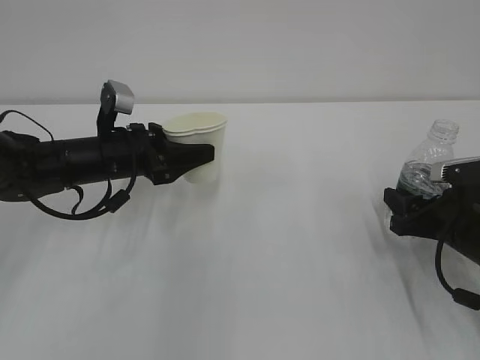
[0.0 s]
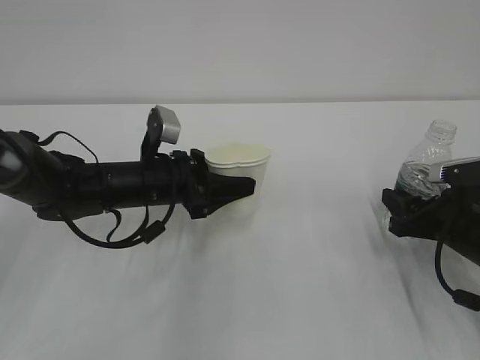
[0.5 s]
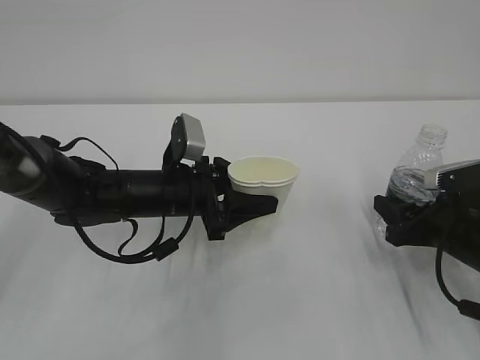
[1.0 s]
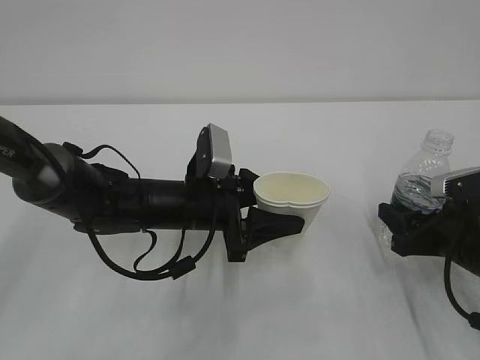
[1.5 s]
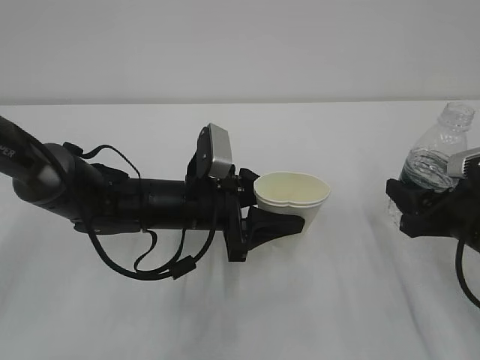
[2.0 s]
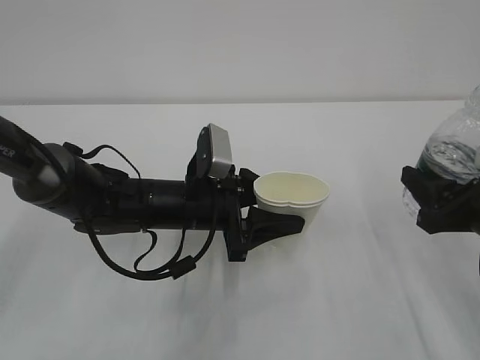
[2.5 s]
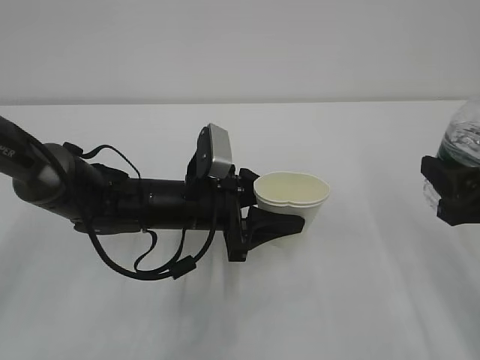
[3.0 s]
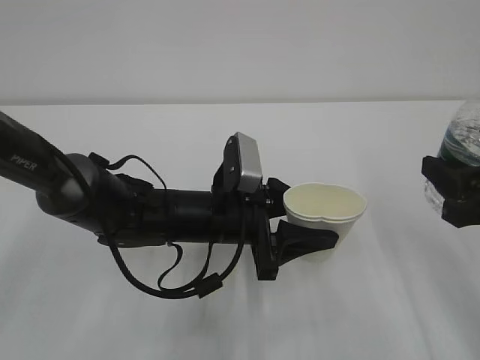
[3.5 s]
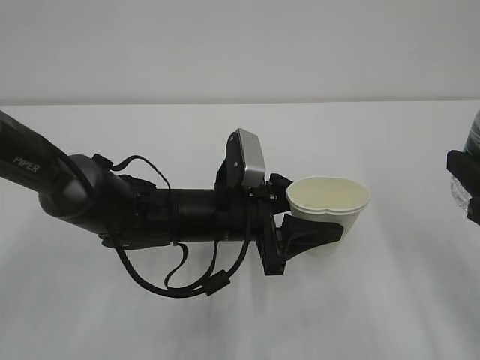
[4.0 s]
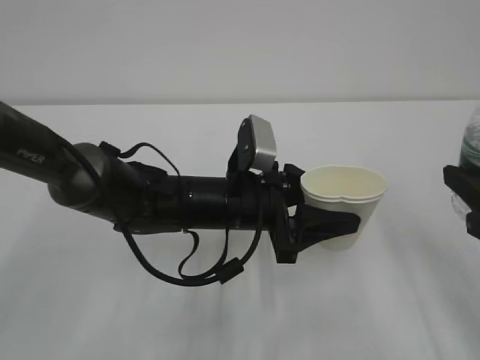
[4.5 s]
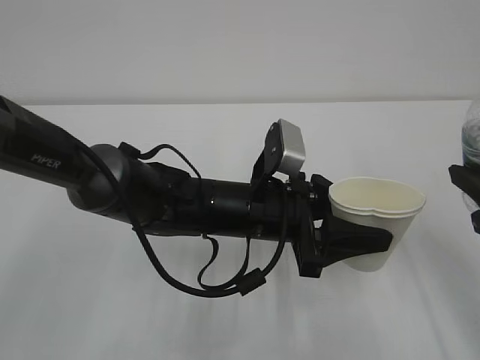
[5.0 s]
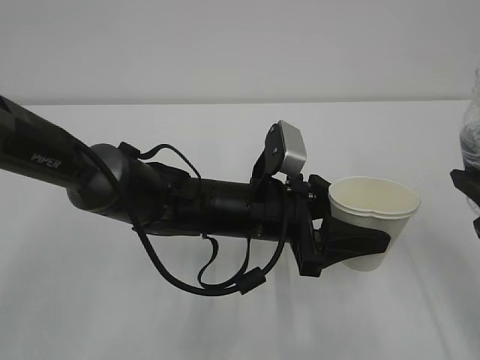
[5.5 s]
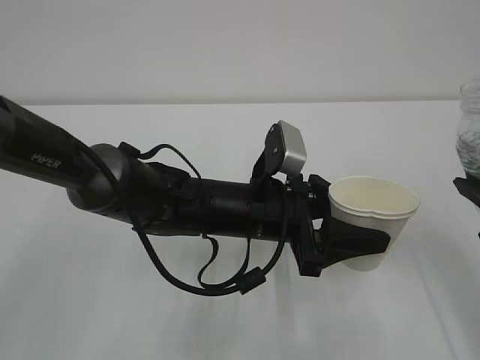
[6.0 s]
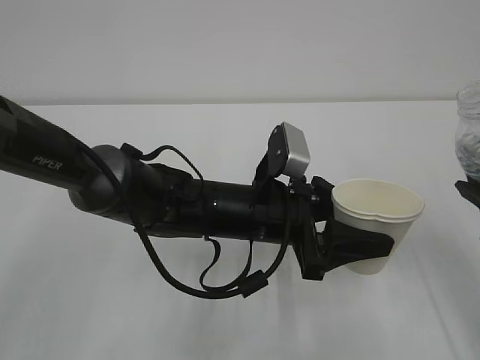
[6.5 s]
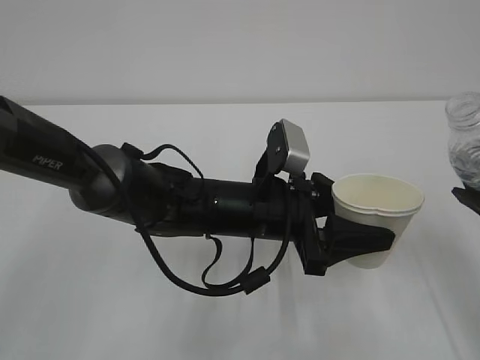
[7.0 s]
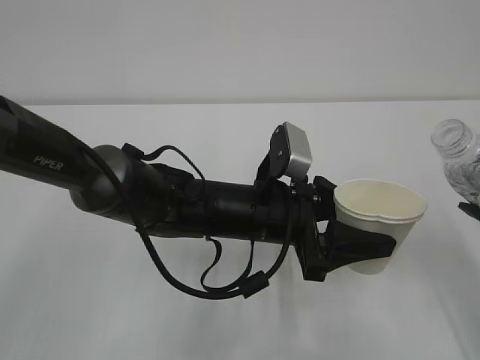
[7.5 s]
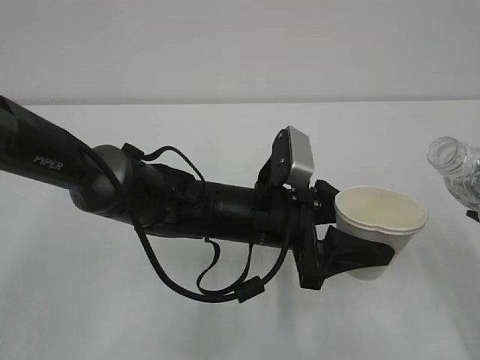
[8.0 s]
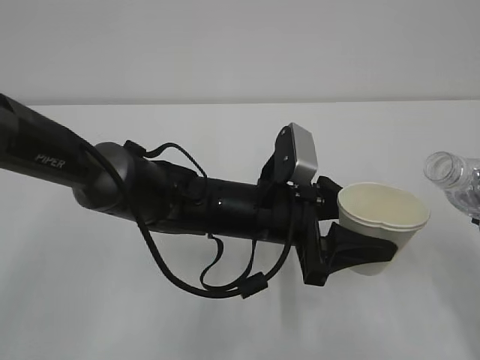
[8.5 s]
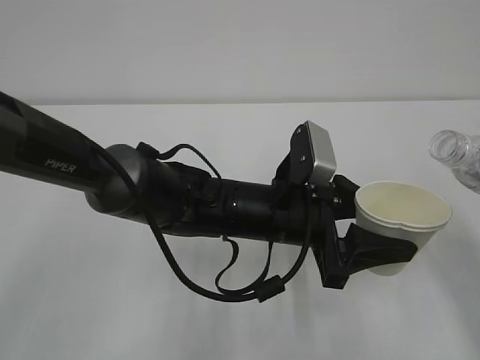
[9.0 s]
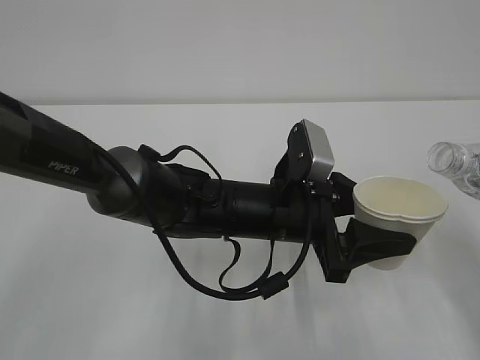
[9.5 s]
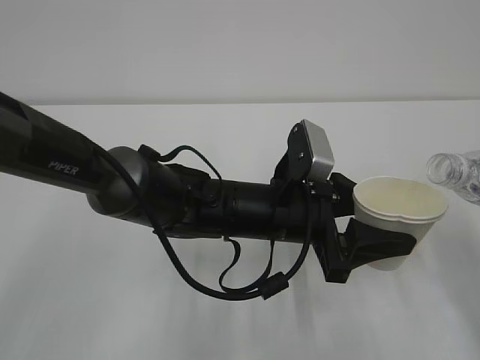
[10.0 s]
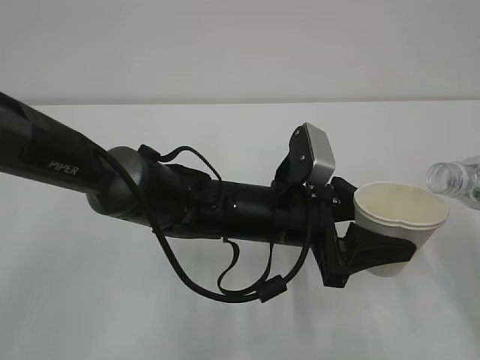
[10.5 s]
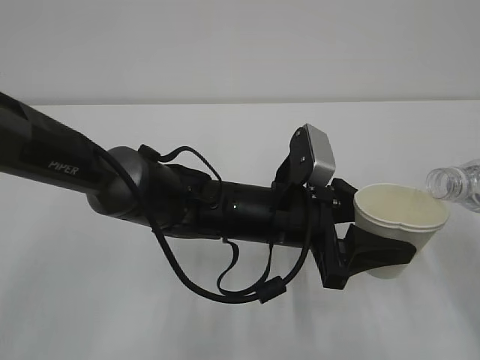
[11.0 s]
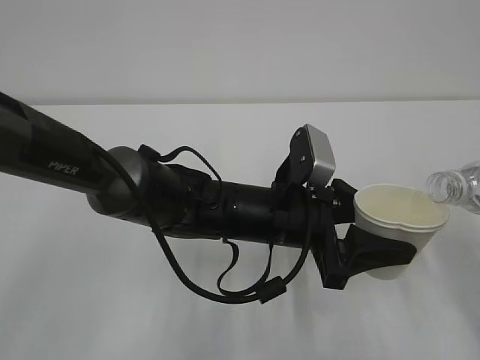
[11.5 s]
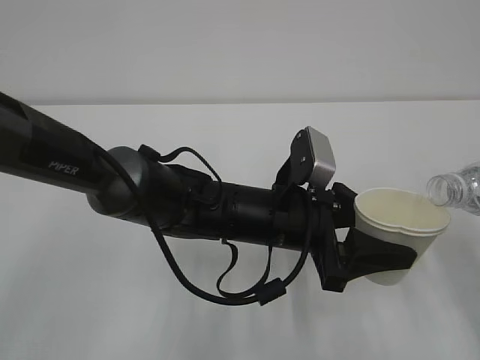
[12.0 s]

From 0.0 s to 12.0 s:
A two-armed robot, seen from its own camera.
From 0.0 s to 2.0 s: The left gripper goes approximately 15 cm to the right and backward.
From 2.0 s to 4.0 s: The right gripper shifts roughly 15 cm upward and backward.
From 8.0 s to 10.0 s: The grippers make only small movements.
From 10.0 s to 12.0 s: The grippers move only a little.

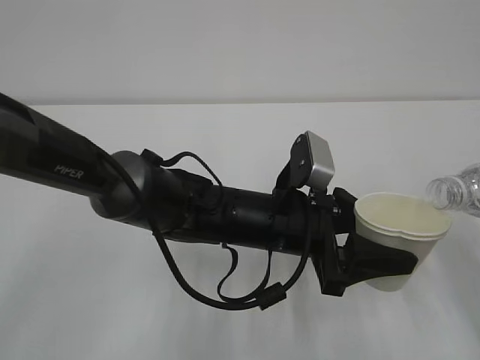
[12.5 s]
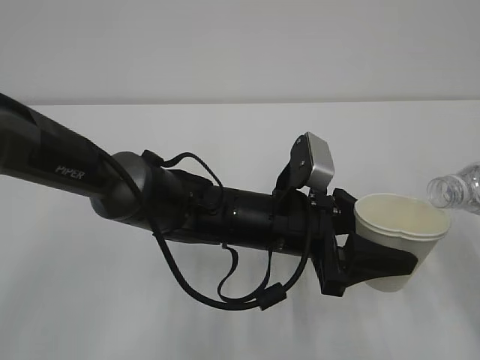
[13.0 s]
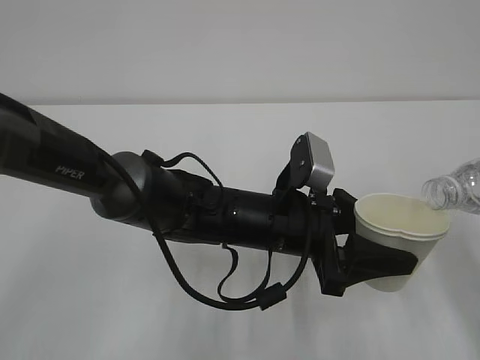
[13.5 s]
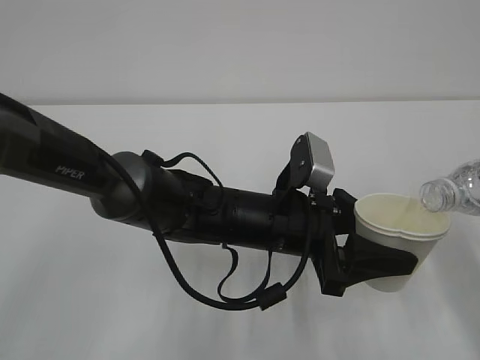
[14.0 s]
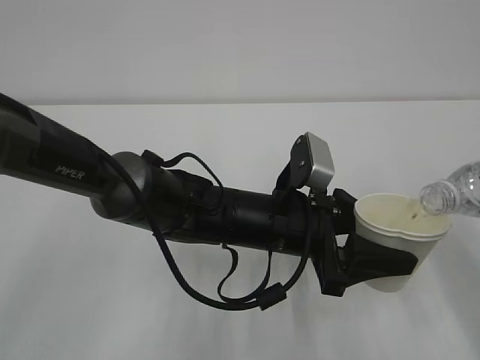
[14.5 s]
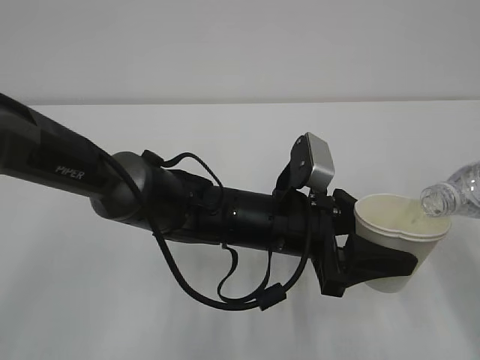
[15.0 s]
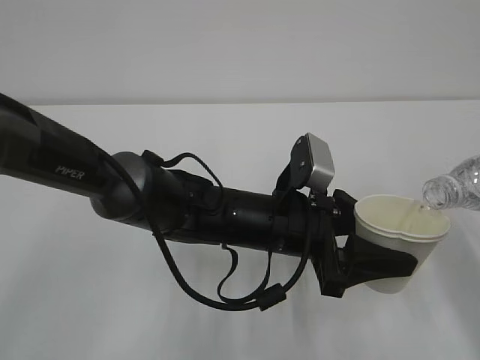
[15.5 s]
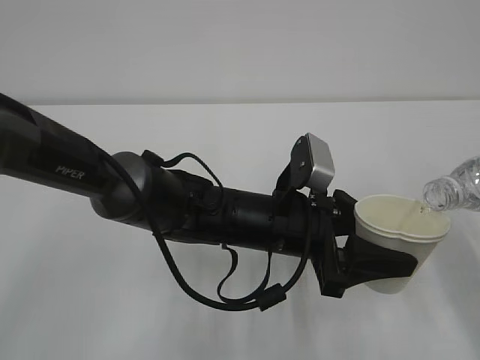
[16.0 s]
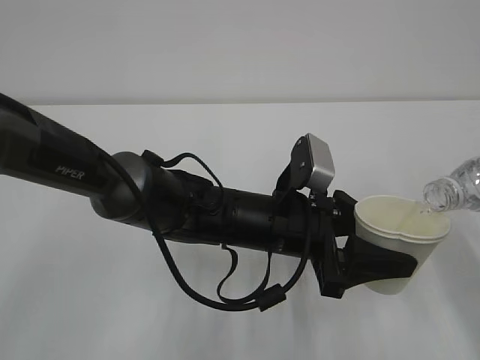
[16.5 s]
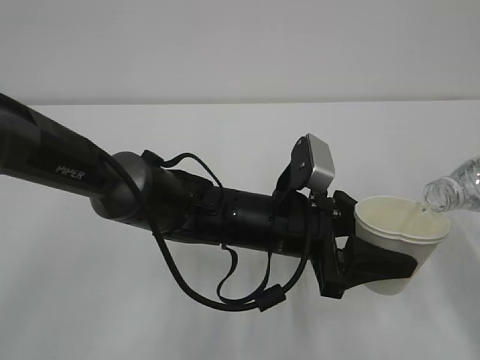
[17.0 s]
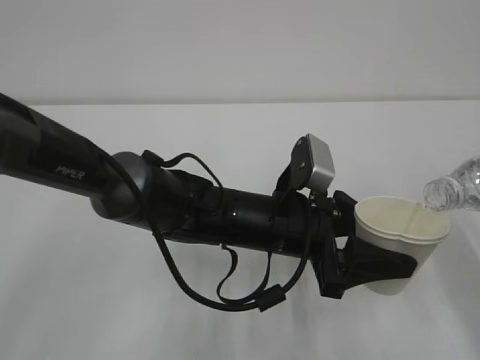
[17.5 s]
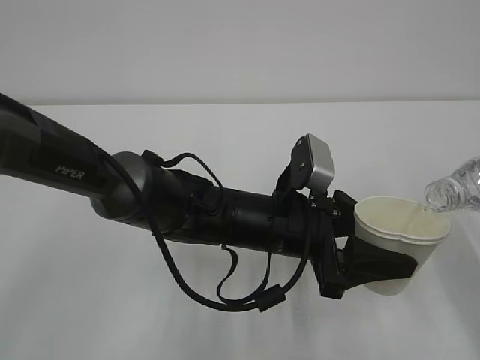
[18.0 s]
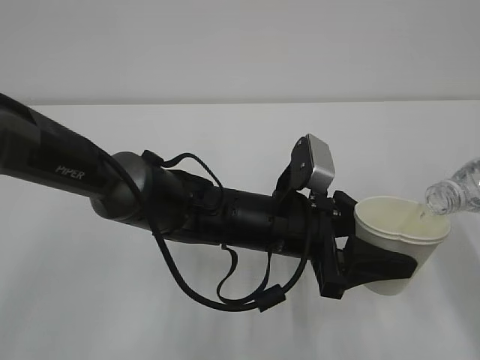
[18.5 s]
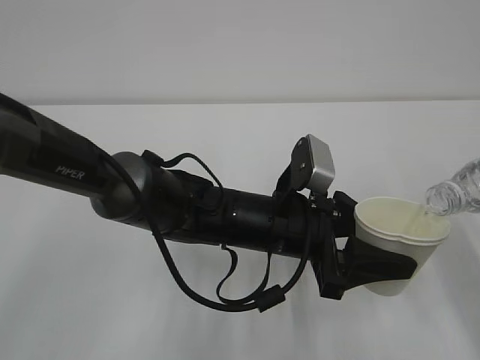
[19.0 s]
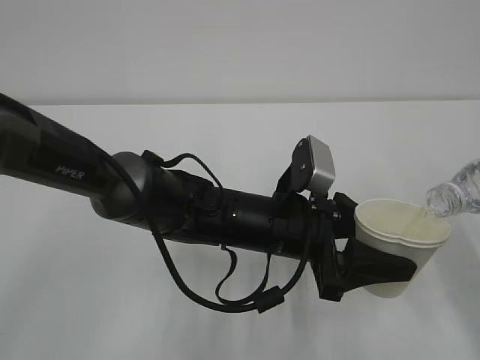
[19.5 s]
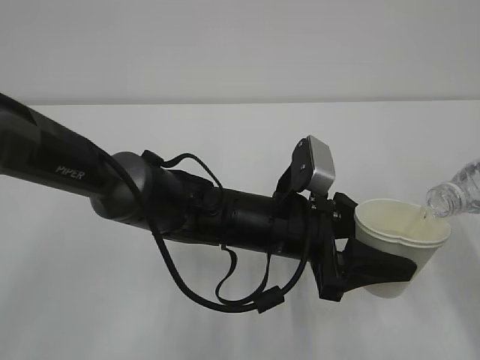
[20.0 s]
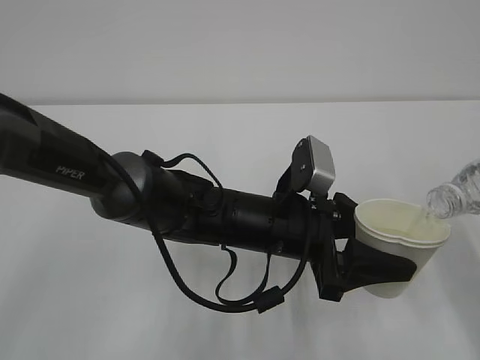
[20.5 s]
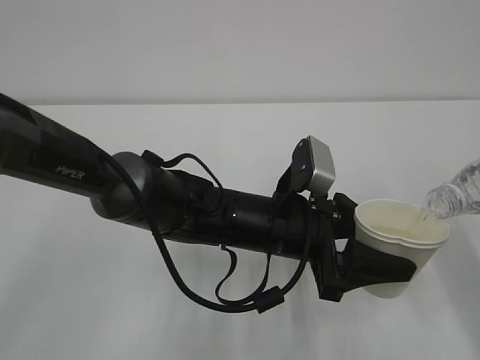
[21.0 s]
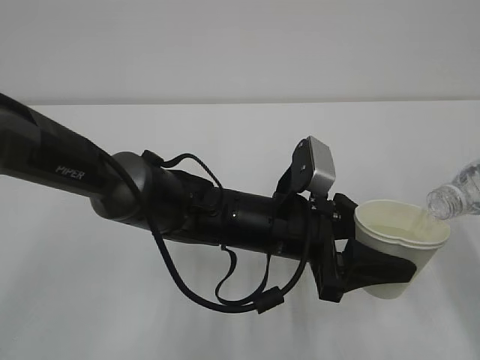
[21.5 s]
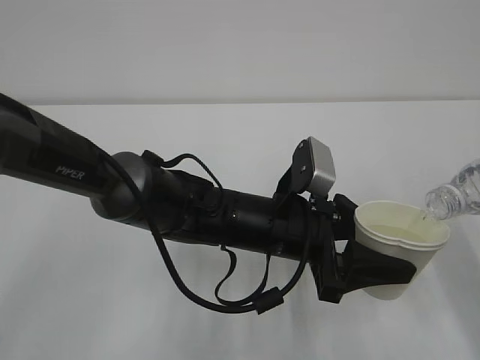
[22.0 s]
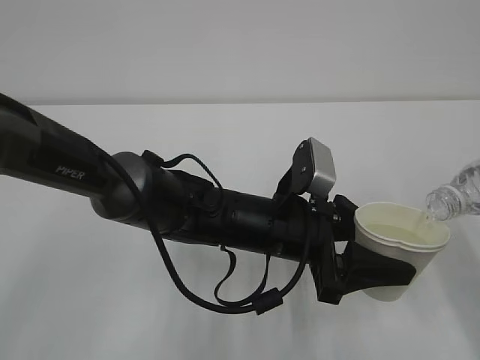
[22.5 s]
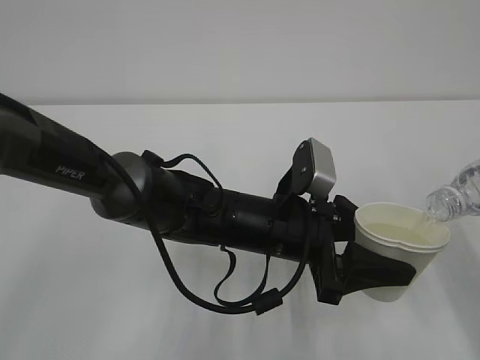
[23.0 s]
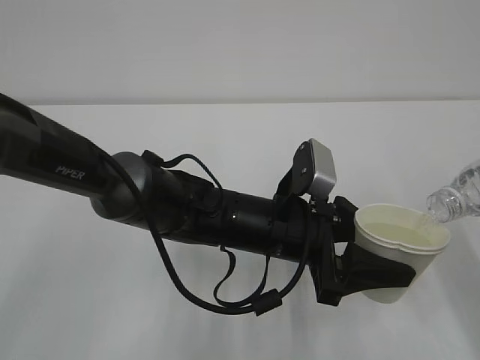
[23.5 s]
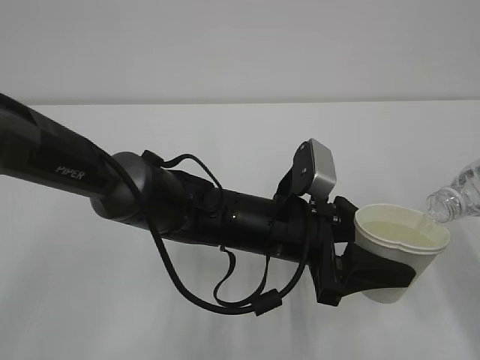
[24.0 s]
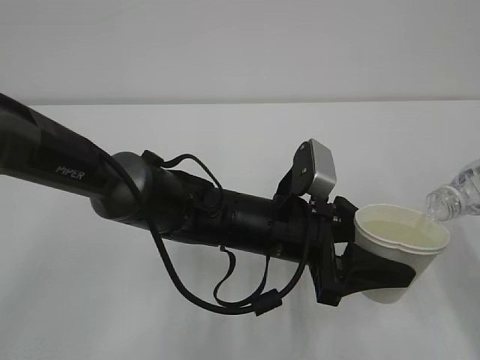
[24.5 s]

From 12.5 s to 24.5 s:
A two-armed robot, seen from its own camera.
From 14.5 s to 18.5 s: Both grippers stay put.
From 18.5 s to 22.5 s: The two grippers keep their place.
From 22.5 s to 24.5 s: Both grippers stay put.

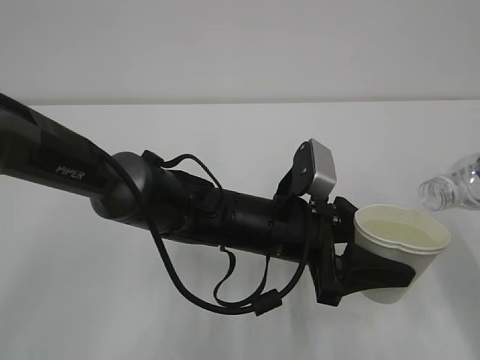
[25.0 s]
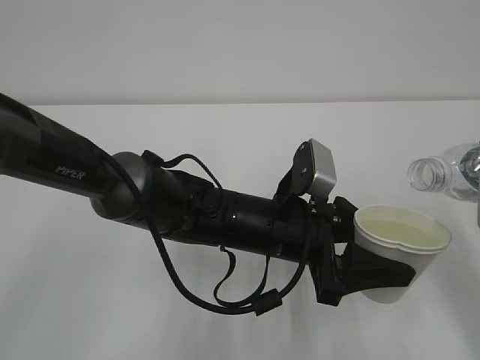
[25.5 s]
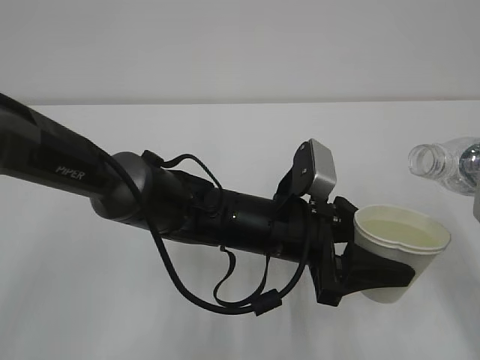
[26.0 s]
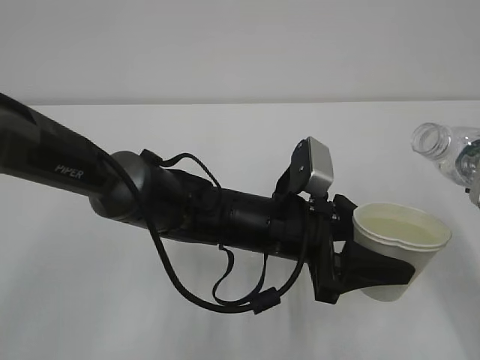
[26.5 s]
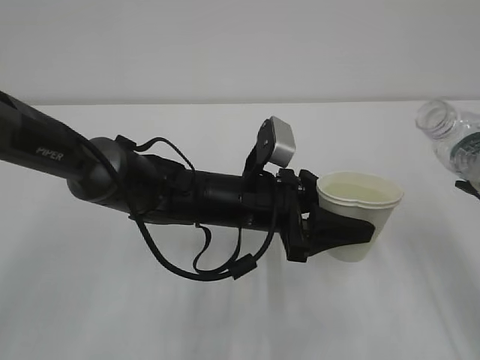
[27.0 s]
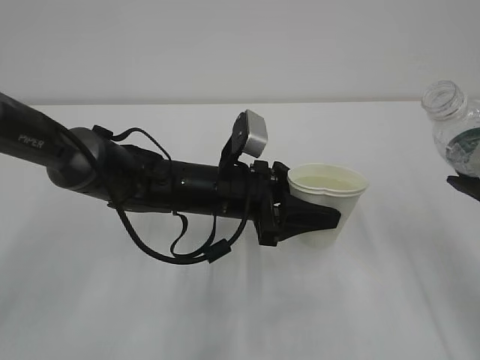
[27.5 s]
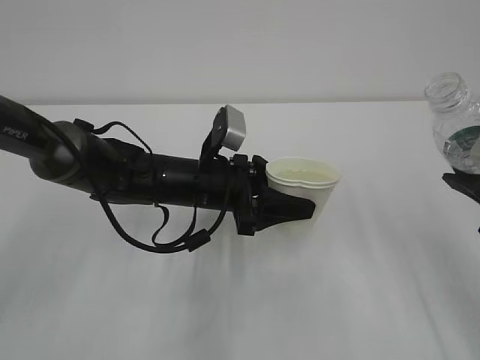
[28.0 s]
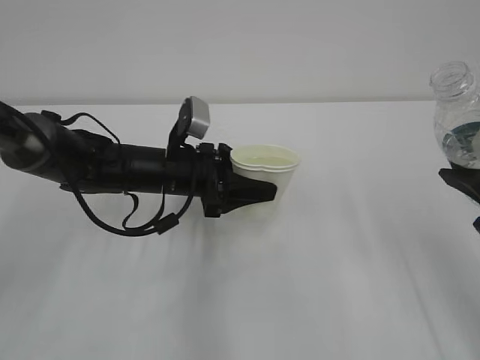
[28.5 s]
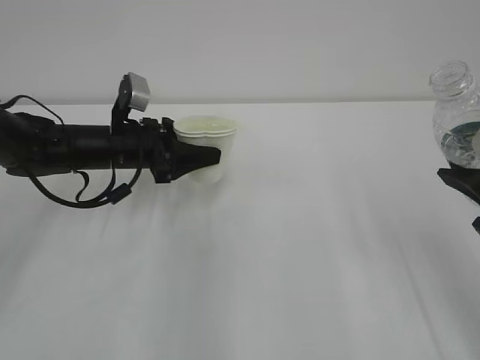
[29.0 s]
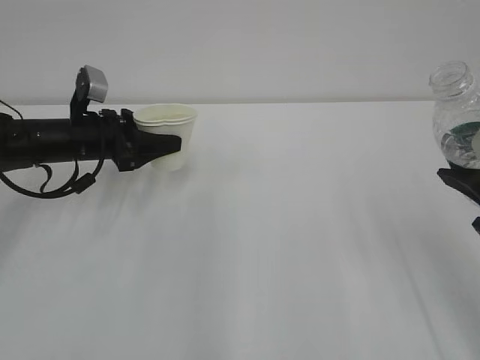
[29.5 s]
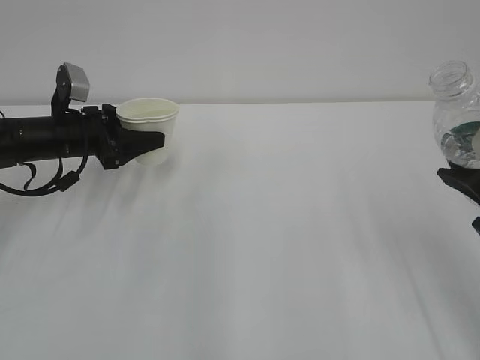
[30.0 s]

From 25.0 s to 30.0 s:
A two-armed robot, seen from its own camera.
From 25.0 s to 27.5 s: The left gripper heads to the left and forward, covering approximately 10 cm.
From 27.5 s to 30.0 s: The left gripper travels to the left and forward by roughly 25 cm.
